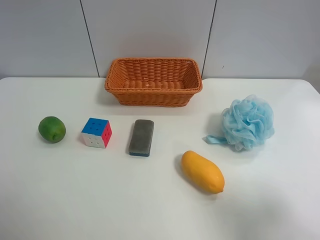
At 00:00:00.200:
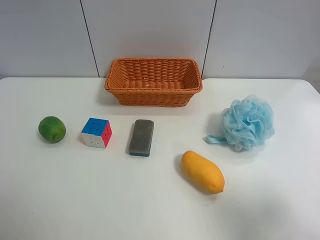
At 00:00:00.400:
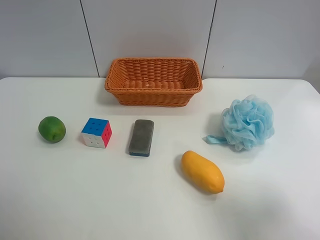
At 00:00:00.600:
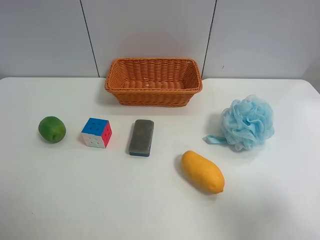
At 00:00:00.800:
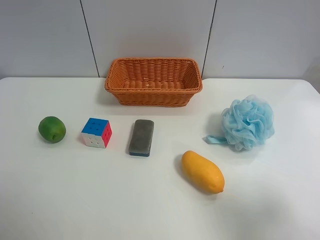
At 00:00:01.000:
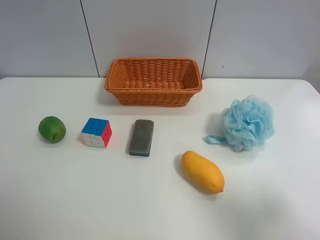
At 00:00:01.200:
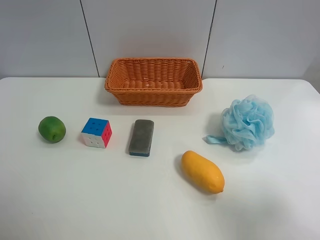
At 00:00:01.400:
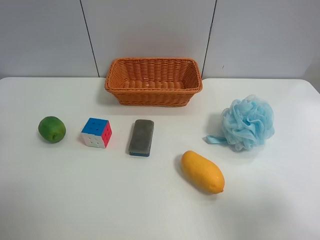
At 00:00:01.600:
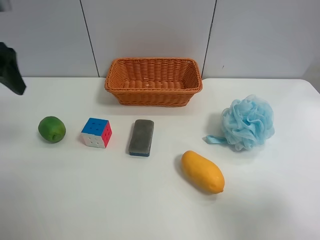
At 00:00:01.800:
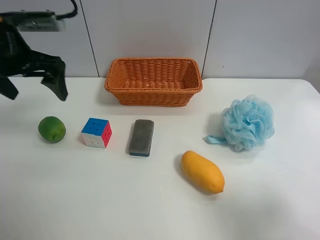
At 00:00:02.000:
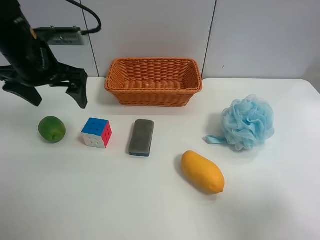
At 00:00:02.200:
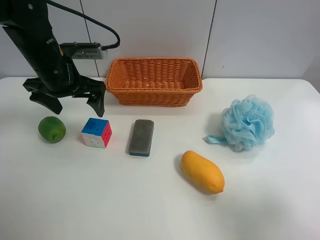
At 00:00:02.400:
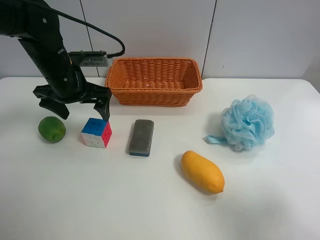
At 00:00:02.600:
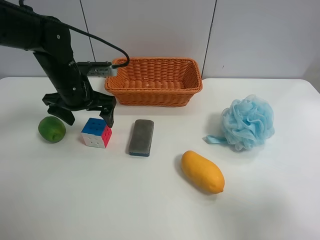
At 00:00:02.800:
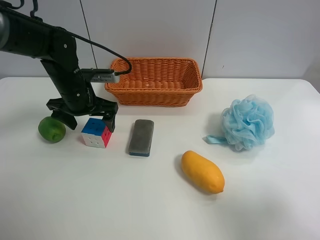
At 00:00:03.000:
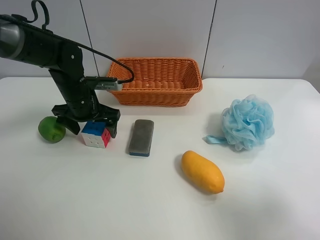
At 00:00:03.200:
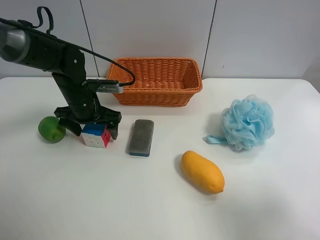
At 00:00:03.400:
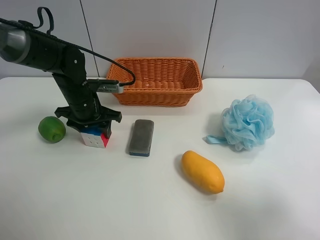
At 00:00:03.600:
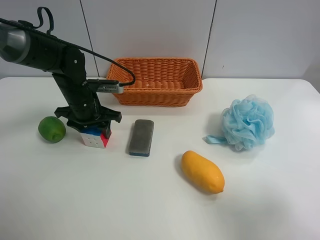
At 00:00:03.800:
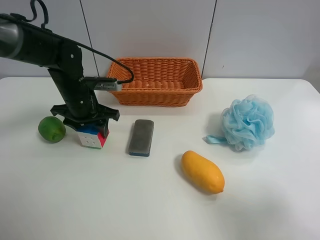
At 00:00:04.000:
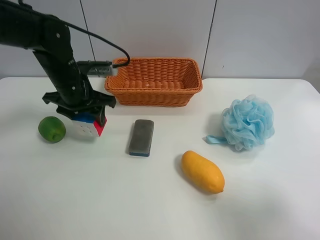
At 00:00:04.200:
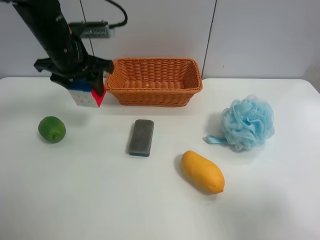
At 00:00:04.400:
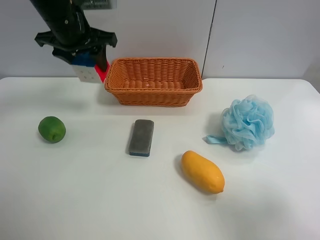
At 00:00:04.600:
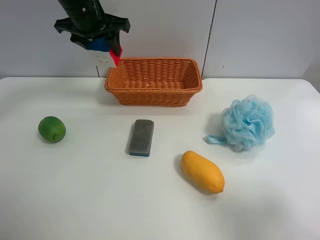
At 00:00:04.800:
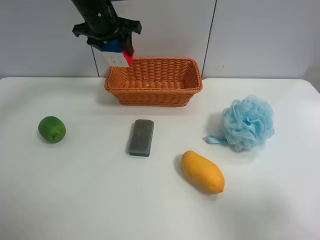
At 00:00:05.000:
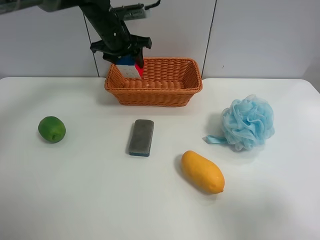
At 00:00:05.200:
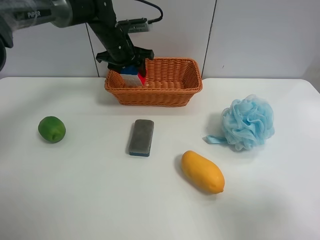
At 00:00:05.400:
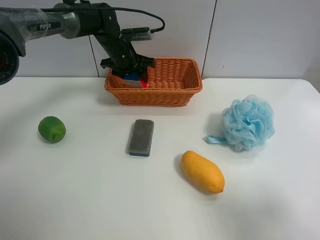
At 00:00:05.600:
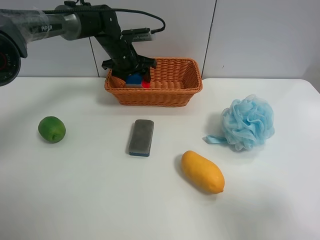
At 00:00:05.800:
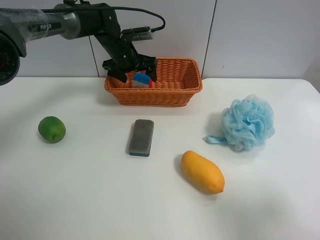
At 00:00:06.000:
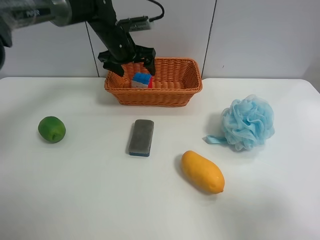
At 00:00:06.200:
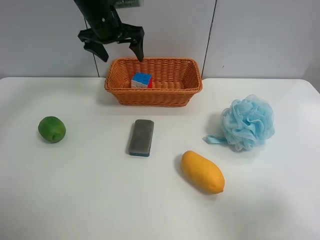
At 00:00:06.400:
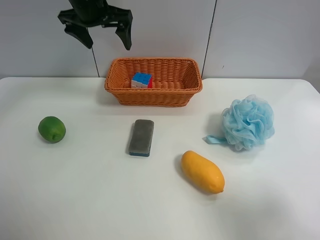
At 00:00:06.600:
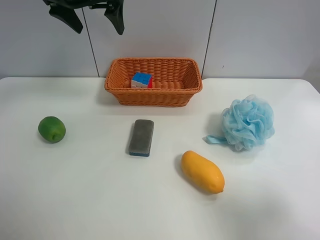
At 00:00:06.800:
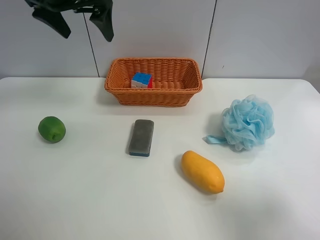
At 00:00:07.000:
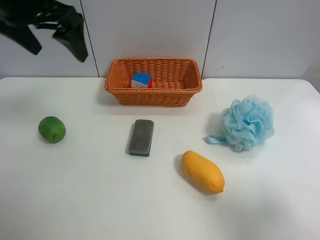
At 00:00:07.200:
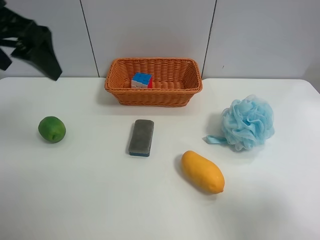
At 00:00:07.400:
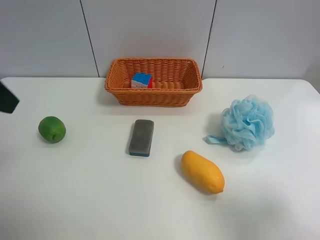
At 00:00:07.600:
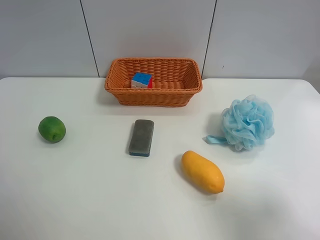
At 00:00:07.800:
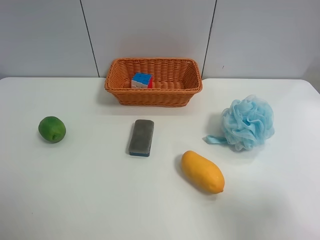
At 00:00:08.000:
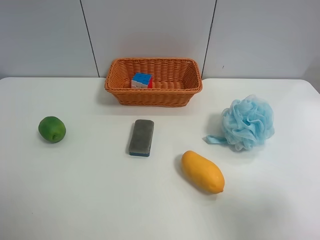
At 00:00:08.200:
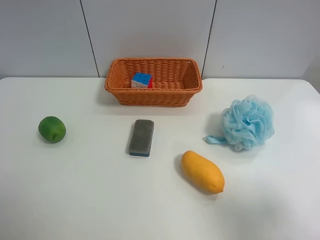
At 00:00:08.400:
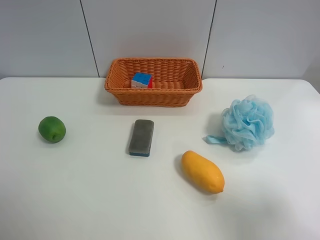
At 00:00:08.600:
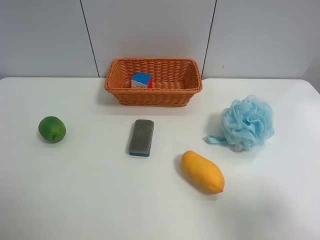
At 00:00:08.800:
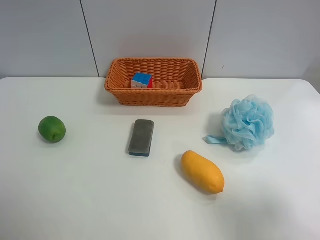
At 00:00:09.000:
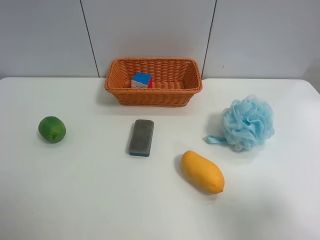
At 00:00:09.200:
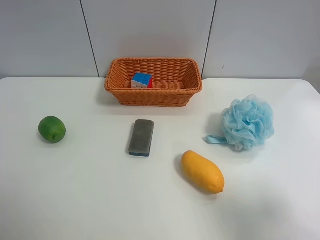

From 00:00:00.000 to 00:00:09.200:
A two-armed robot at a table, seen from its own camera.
Task of the whole recording: use the left gripper to grab items from the table and place them in the basket.
Step, from 00:00:00.000 to 00:00:03.400: Grasp the Rubik's Cube with the left gripper.
Step, from 00:00:03.600 to 00:00:06.000: Place the Rubik's Cube into the basket with the left gripper.
From 00:00:00.000 to 00:00:01.600: The left gripper heads forward, covering approximately 25 cm.
From 00:00:01.600 to 00:00:03.000: The left gripper shifts some 25 cm downward, to the right and forward.
From 00:00:03.000 to 00:00:04.600: The left gripper goes approximately 20 cm upward and forward, and closes up.
From 00:00:04.600 to 00:00:06.200: The left gripper travels downward and back again, approximately 10 cm each way, and opens up.
From 00:00:06.200 to 00:00:07.600: The left gripper heads backward, covering approximately 35 cm.
